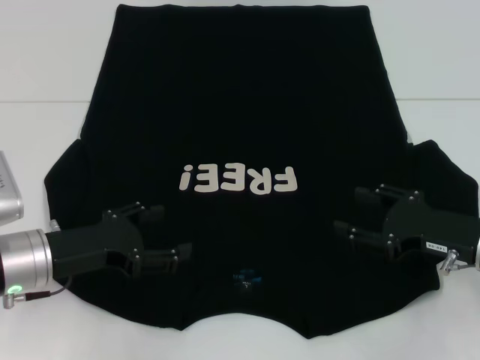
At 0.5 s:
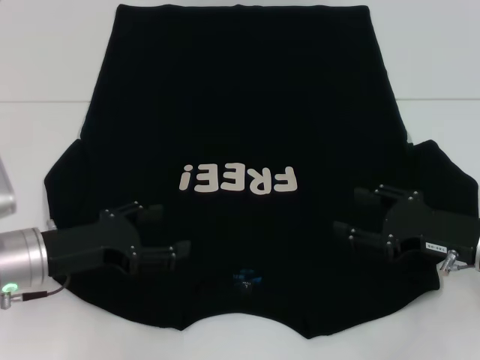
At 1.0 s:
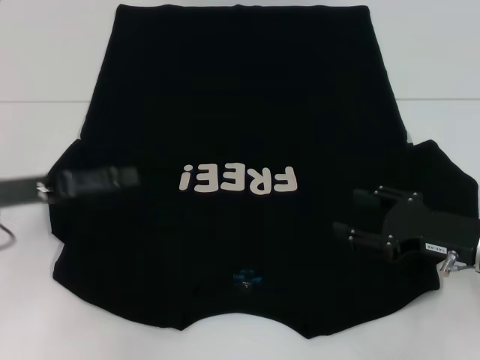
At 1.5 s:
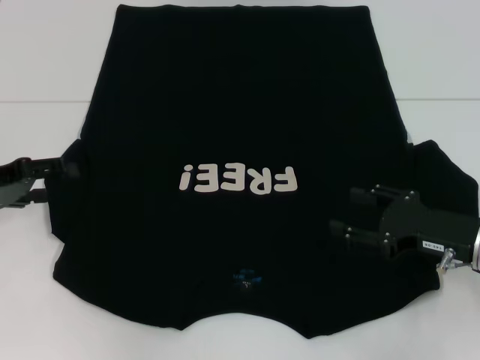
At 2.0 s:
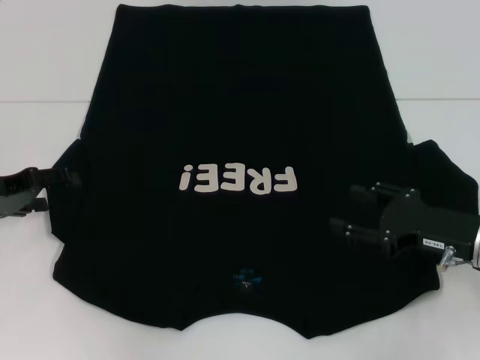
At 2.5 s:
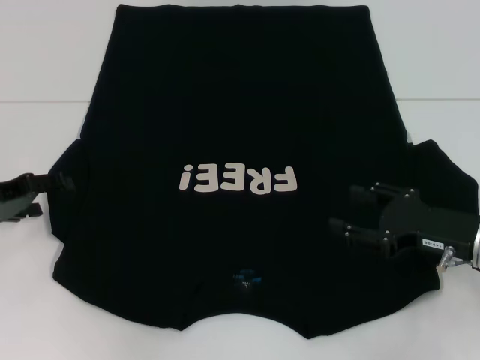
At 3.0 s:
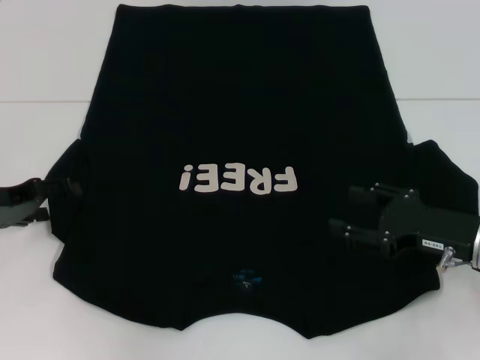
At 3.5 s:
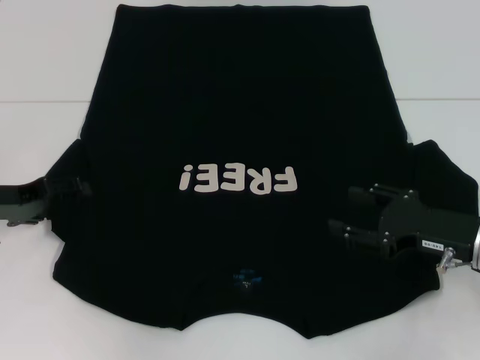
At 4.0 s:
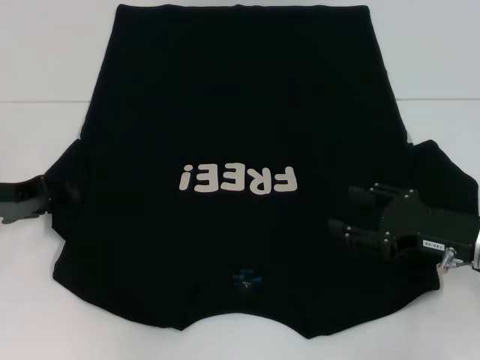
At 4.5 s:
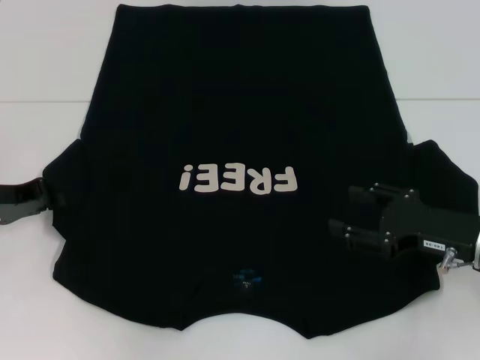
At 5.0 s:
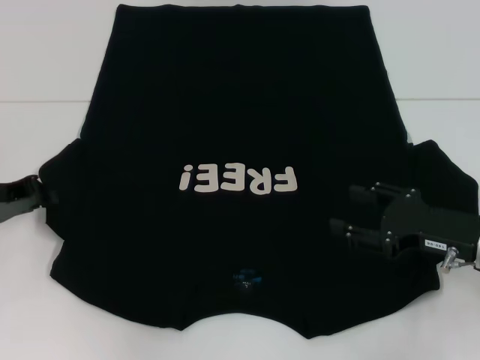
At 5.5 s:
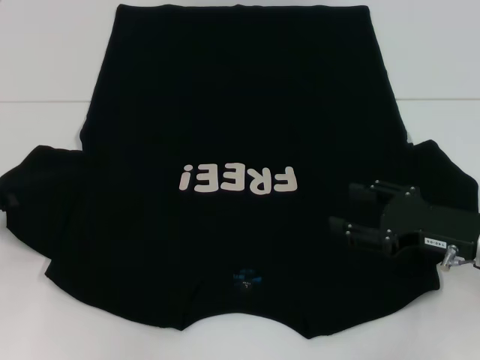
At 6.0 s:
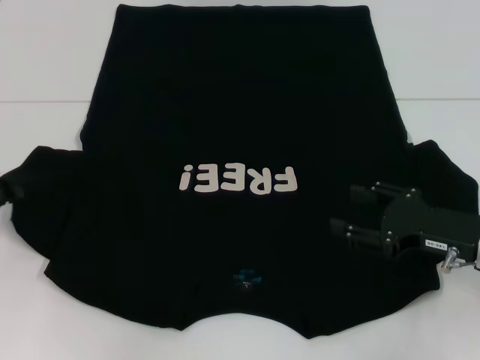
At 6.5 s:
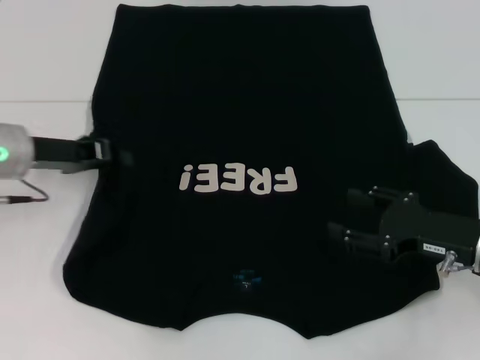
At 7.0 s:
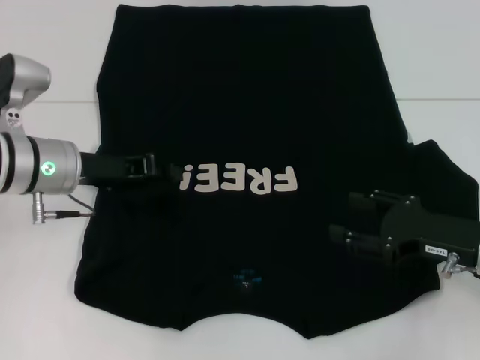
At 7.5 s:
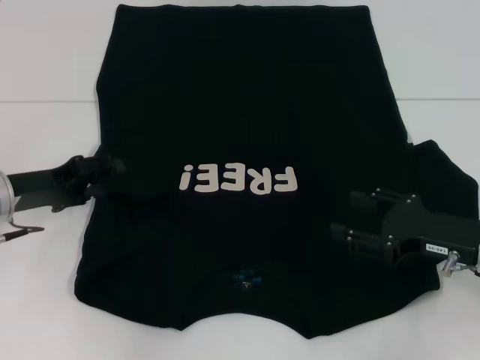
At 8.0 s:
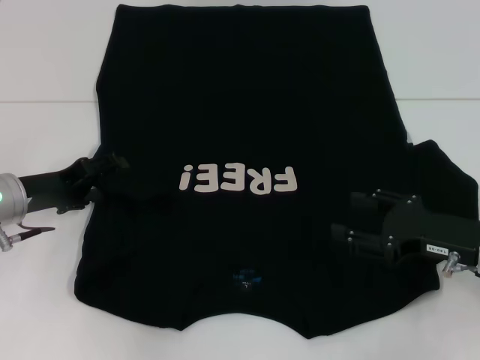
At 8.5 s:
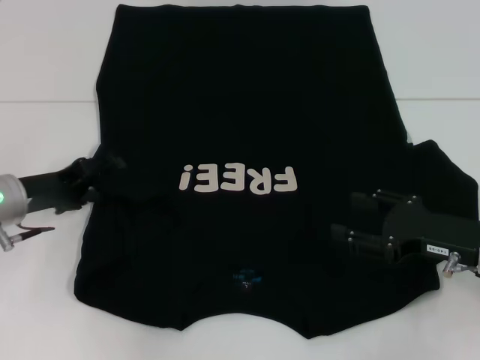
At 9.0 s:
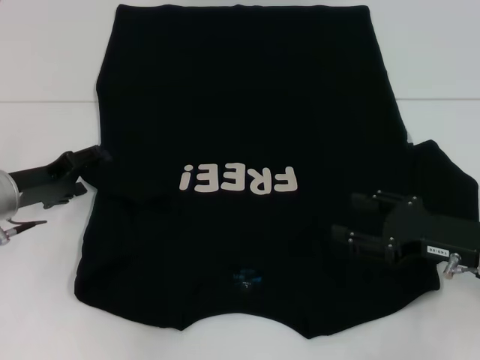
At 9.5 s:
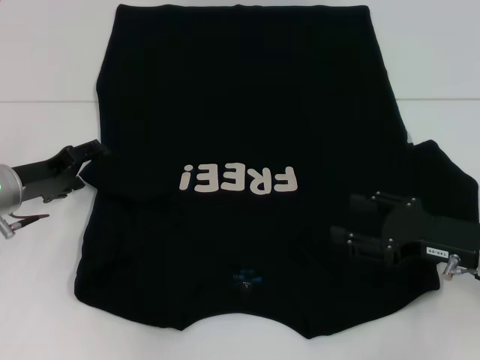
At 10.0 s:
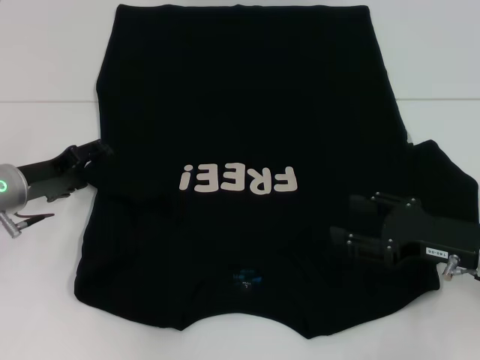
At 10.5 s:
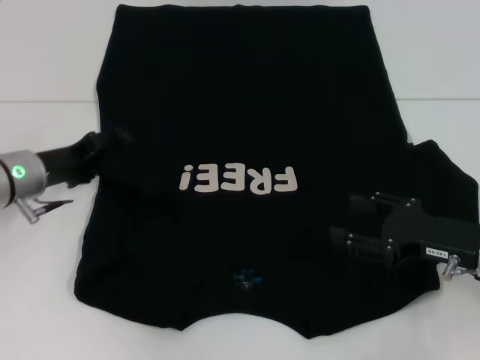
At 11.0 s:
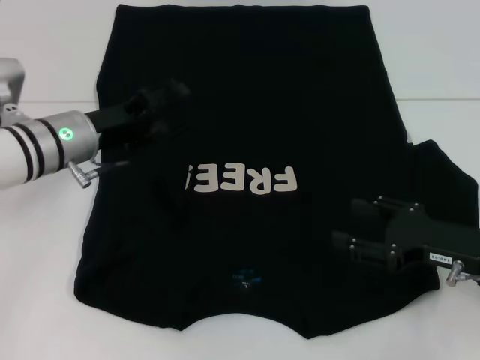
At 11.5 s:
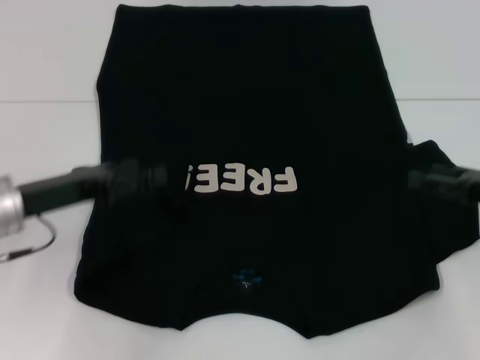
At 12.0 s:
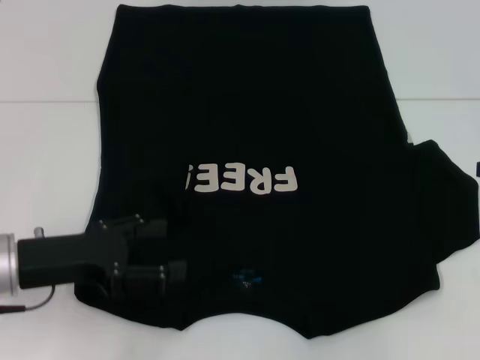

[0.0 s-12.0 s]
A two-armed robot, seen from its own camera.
Step, 0.0 to 11.0 s: Fold the bottom left sleeve with your left hand.
0.0 to 2.0 s: The left gripper travels to the left and forward by some 10 cm.
2.0 to 4.0 s: The grippers stay close to where they were, moving slightly.
4.0 to 6.0 s: The left gripper closes up.
6.0 to 8.0 s: The left gripper travels to the right by roughly 10 cm, and opens its fingers.
8.0 to 10.0 s: The grippers stay close to where they were, moving slightly.
10.0 to 12.0 s: The left gripper shifts about 10 cm backward. The right gripper goes roughly 15 cm upward, to the right and forward.

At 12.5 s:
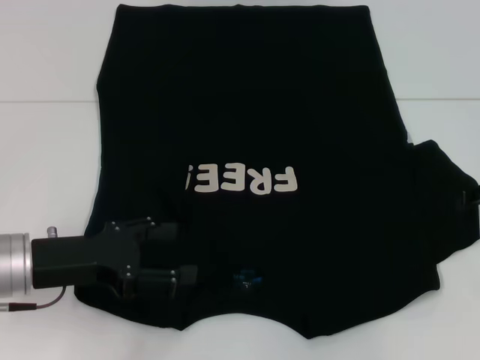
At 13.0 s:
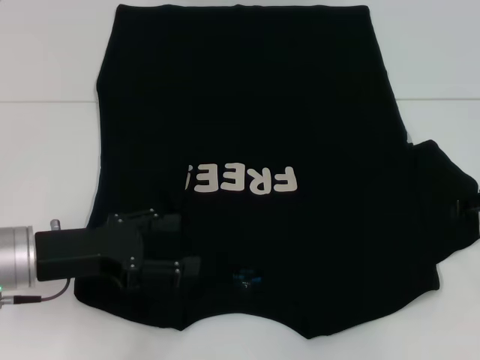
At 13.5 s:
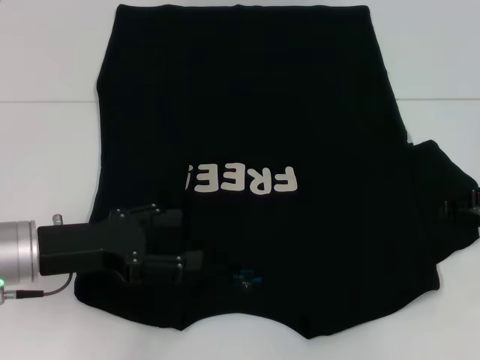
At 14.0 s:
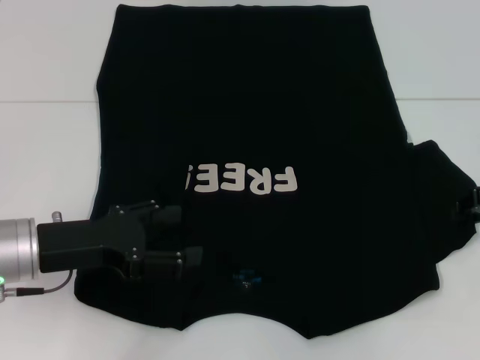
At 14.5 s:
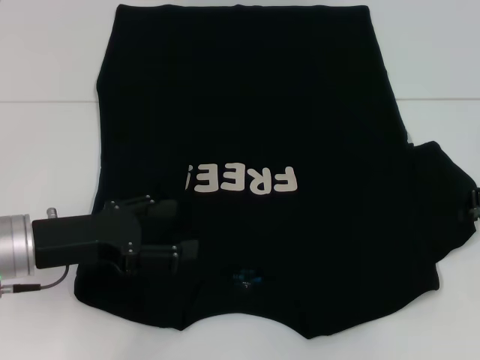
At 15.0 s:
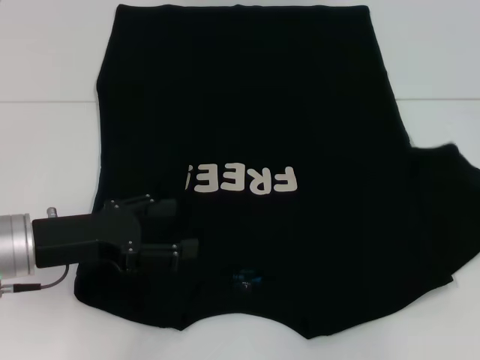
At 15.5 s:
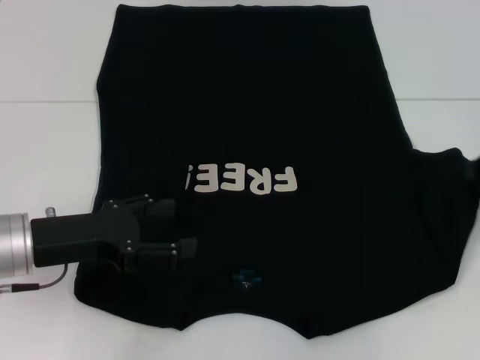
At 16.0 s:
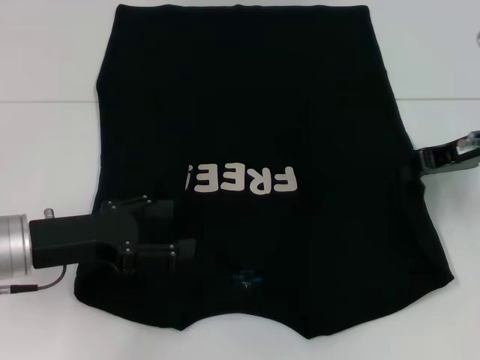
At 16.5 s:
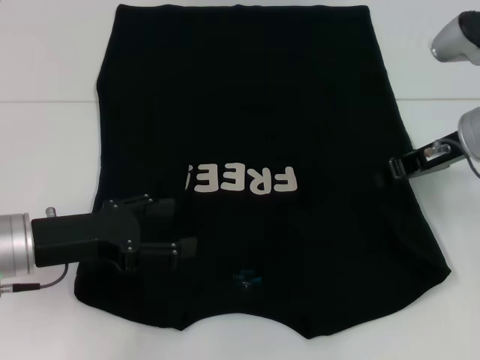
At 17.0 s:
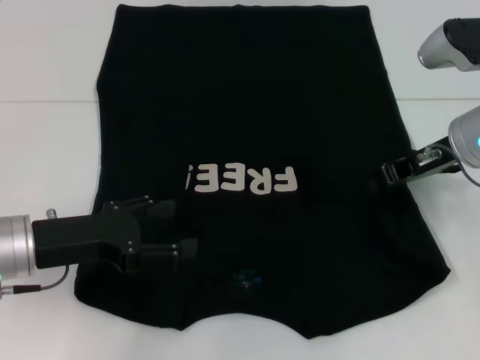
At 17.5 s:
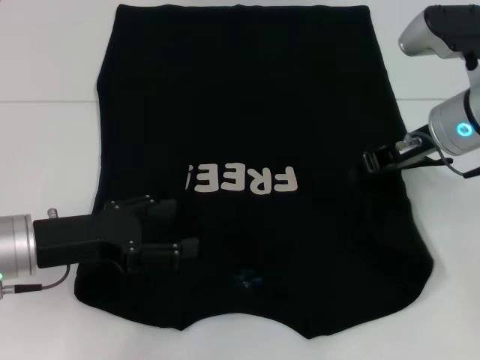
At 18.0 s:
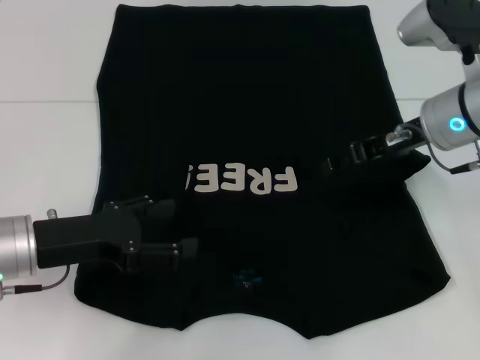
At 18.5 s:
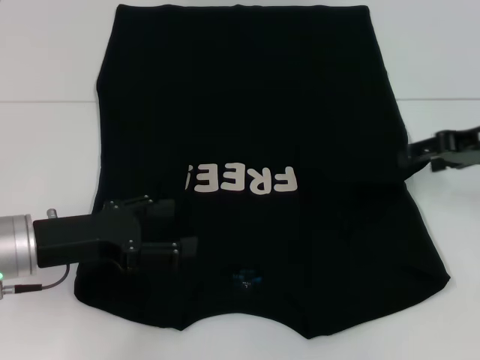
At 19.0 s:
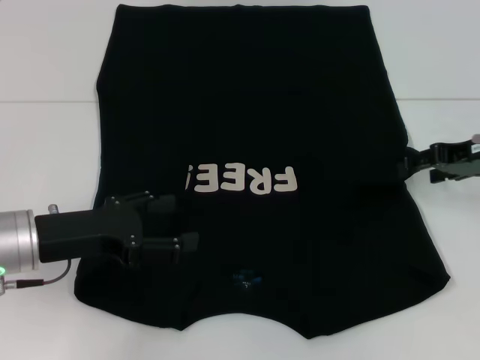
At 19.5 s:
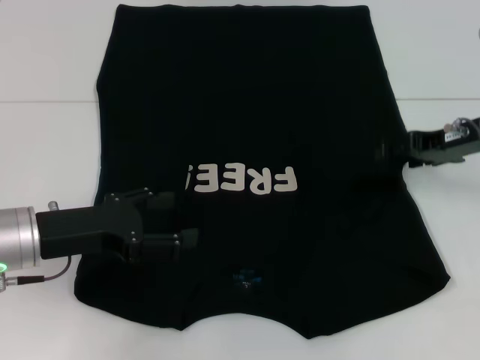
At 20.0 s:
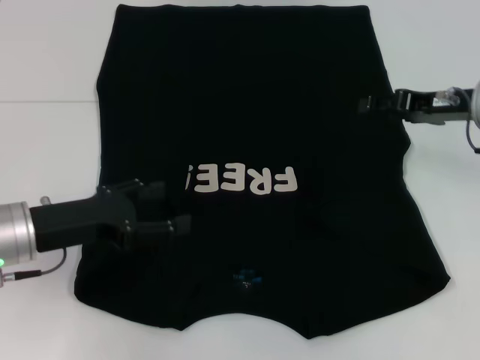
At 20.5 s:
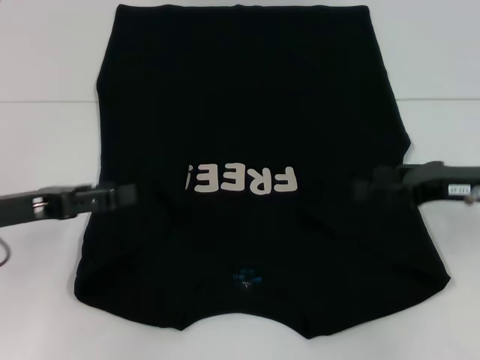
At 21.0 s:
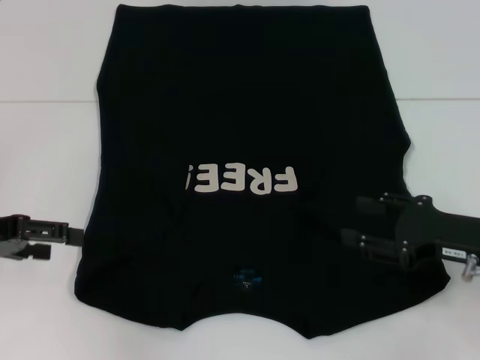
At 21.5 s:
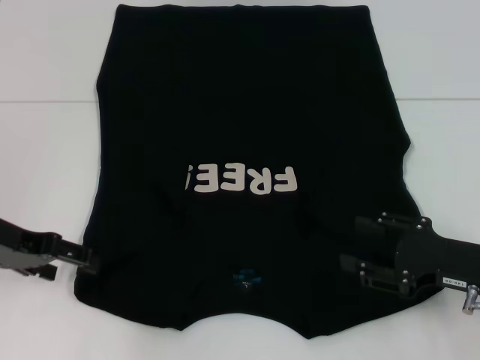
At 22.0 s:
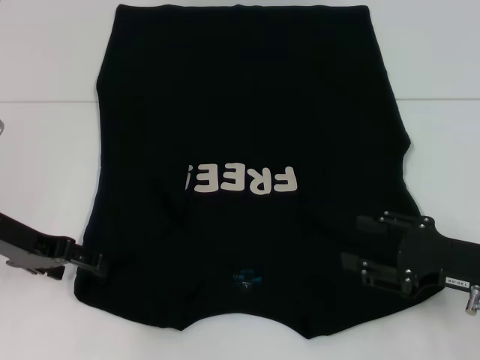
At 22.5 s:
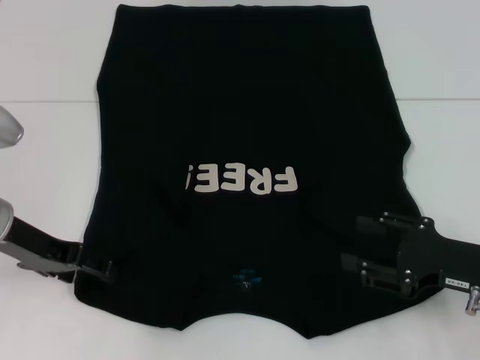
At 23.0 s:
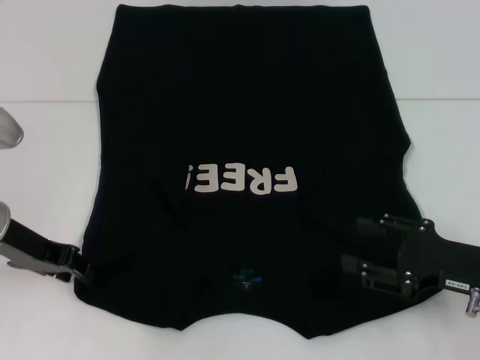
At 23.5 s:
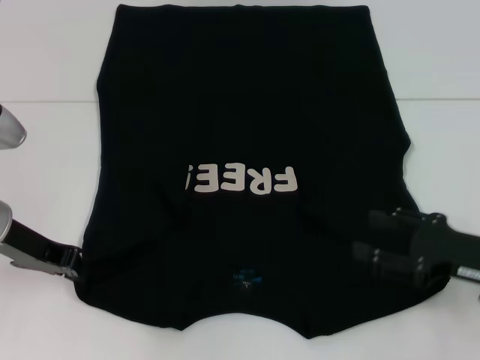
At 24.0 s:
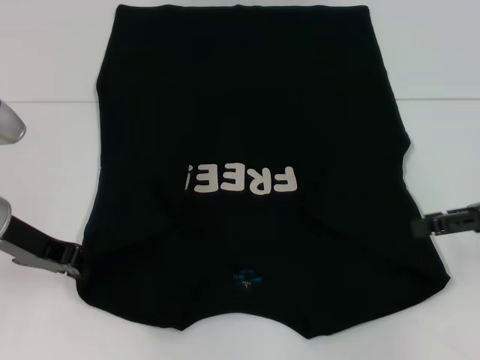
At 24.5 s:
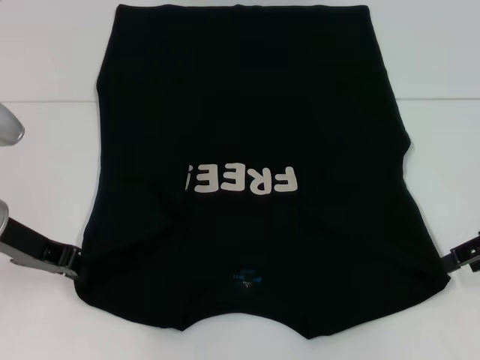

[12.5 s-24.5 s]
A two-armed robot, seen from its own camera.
Step, 12.5 to 20.0 s: Fold the bottom right sleeve with your right hand.
Step, 20.5 to 23.5 s: Grab the bottom left corner with your left hand.
14.5 to 16.5 s: The right gripper is displaced to the left by about 10 cm.
16.5 to 18.5 s: The right gripper shifts some 5 cm to the right, and opens up.
18.5 to 20.5 s: The right gripper heads downward, covering about 5 cm; the left gripper is displaced to the left by about 5 cm.
20.5 to 22.5 s: The right gripper shifts roughly 10 cm backward and downward. The left gripper moves approximately 5 cm.
22.5 to 24.5 s: The left gripper closes up. The right gripper heads upward and forward, covering roughly 10 cm.

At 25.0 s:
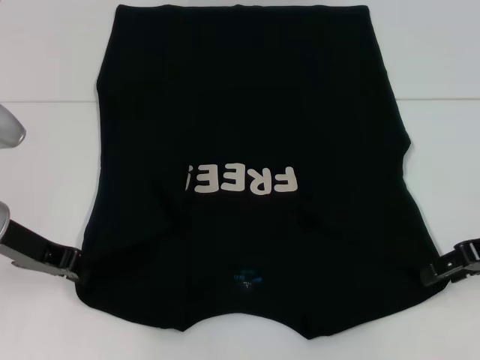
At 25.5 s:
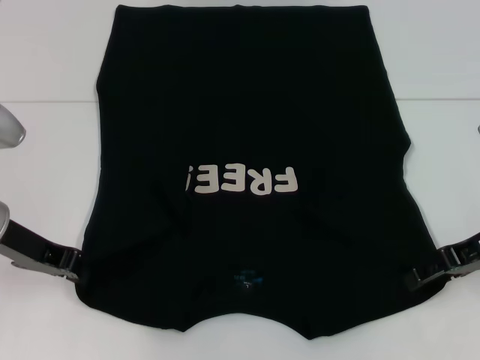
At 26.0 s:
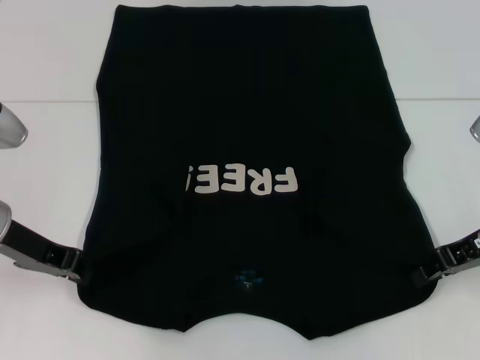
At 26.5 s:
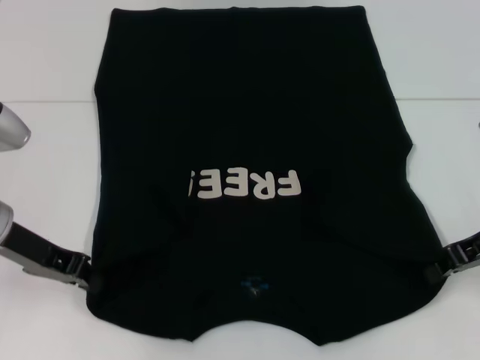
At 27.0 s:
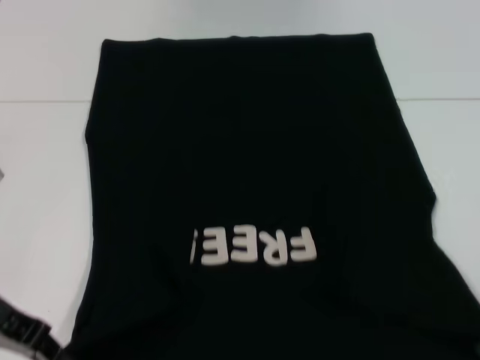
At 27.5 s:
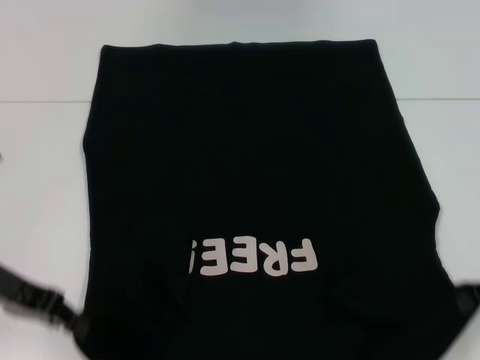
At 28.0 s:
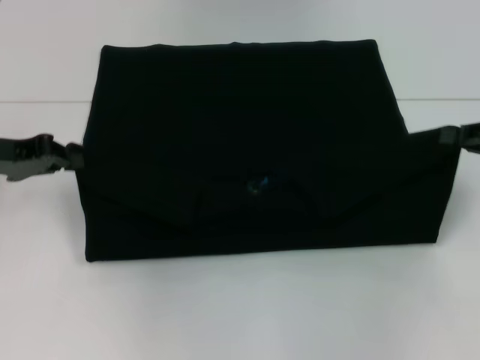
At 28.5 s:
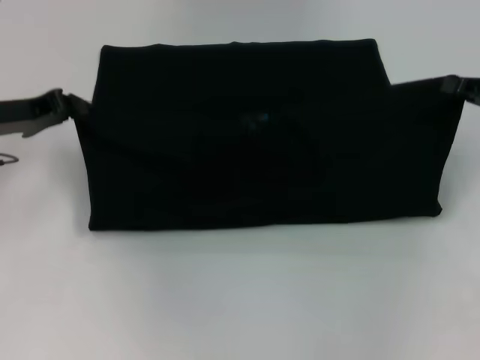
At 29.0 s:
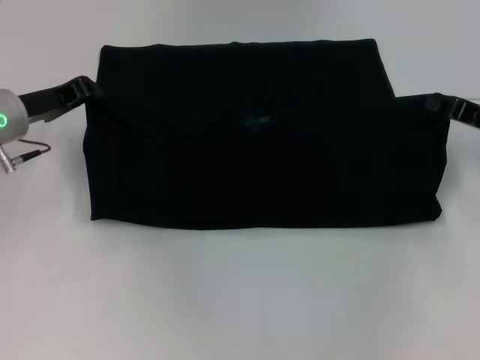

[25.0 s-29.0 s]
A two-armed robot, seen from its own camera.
25.0 to 27.0 s: The right gripper closes its fingers.
27.0 to 29.0 s: The two grippers go about 10 cm forward.
